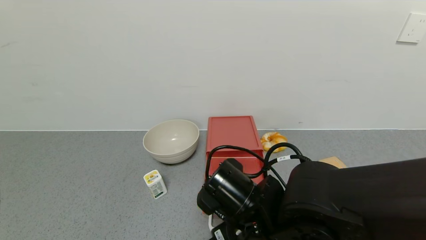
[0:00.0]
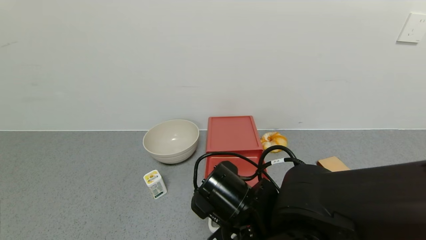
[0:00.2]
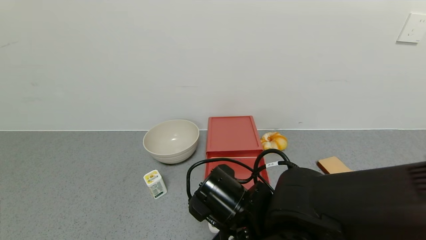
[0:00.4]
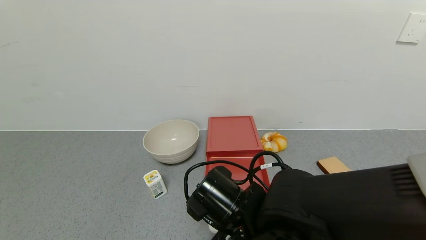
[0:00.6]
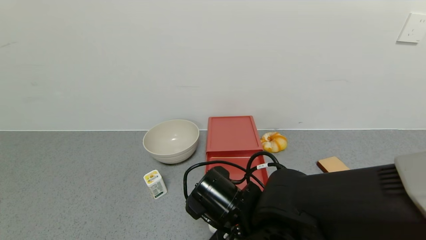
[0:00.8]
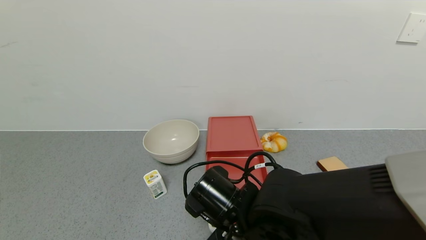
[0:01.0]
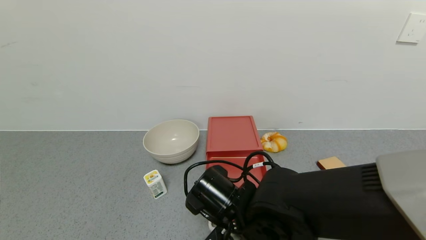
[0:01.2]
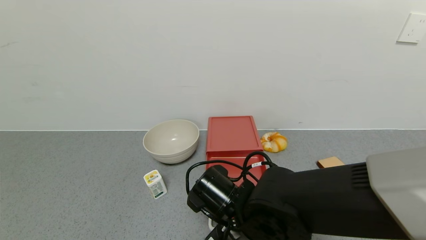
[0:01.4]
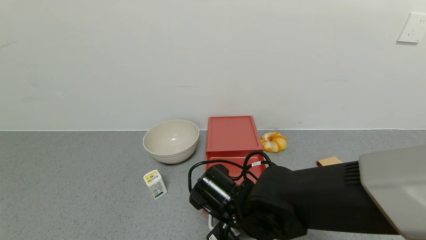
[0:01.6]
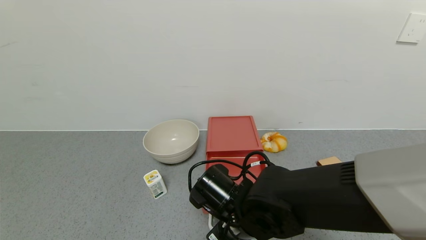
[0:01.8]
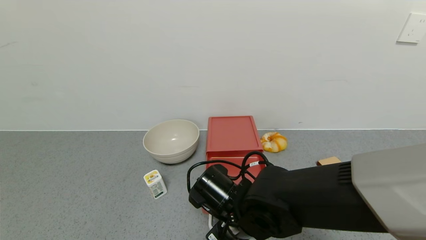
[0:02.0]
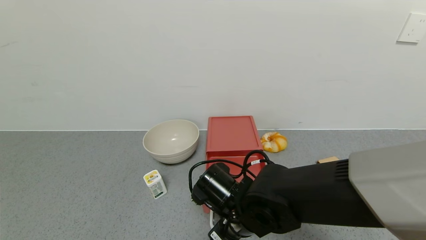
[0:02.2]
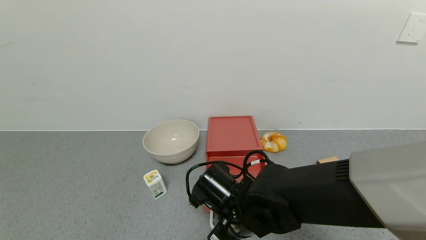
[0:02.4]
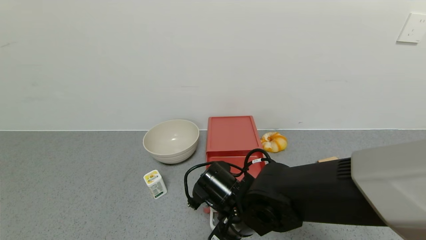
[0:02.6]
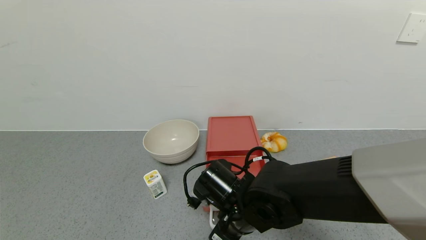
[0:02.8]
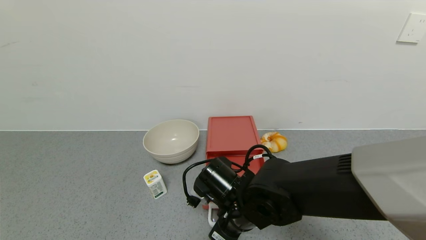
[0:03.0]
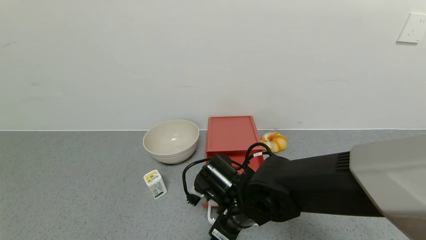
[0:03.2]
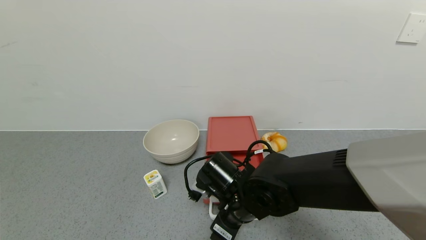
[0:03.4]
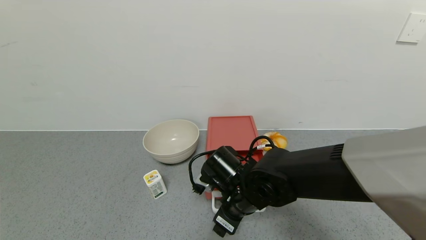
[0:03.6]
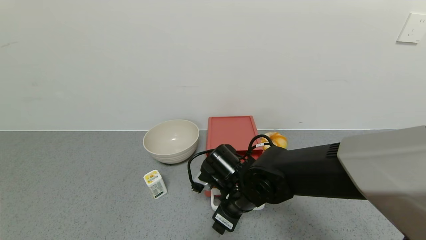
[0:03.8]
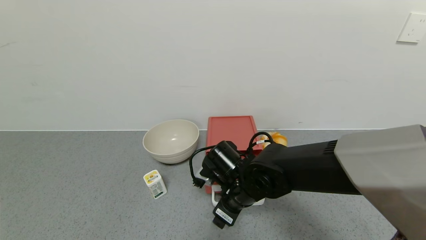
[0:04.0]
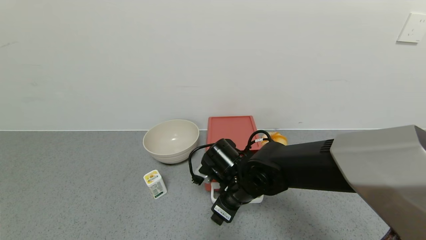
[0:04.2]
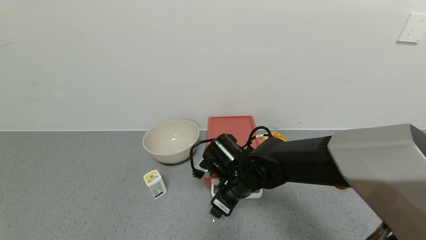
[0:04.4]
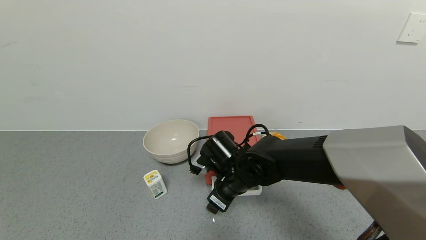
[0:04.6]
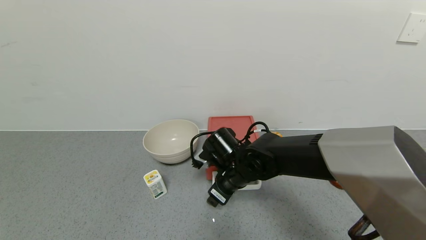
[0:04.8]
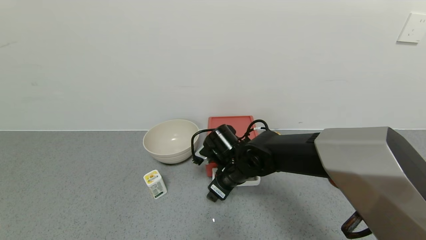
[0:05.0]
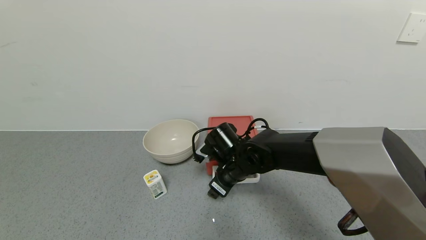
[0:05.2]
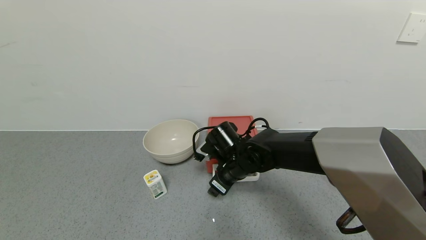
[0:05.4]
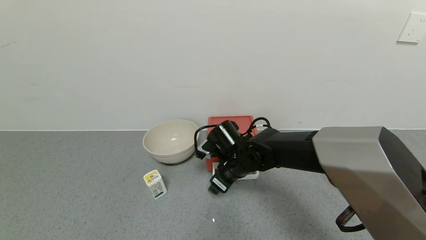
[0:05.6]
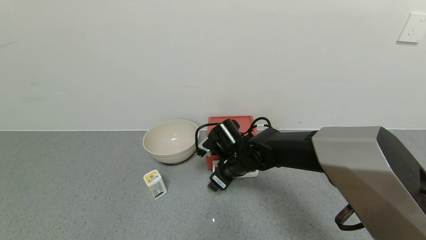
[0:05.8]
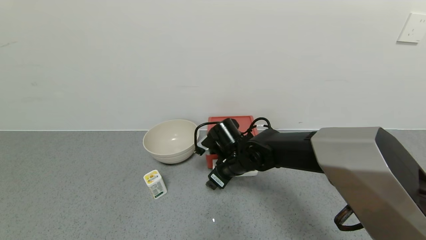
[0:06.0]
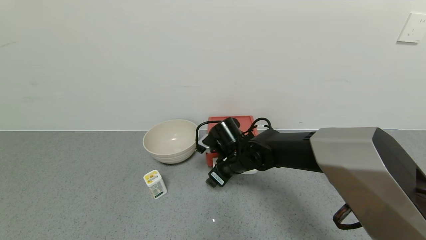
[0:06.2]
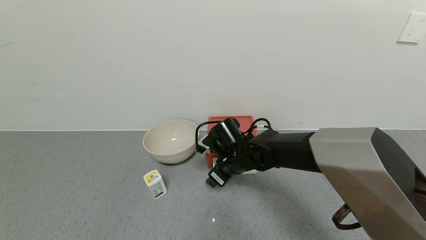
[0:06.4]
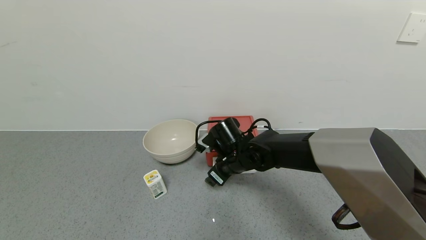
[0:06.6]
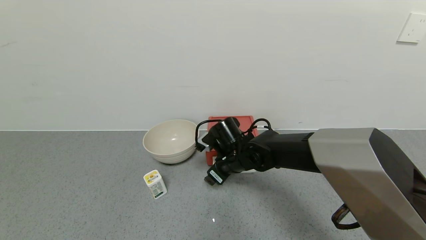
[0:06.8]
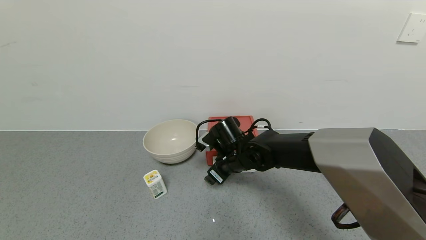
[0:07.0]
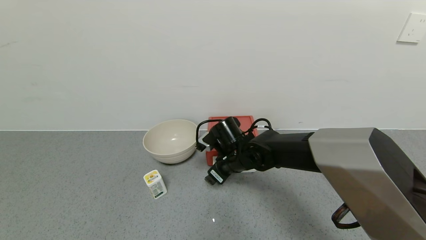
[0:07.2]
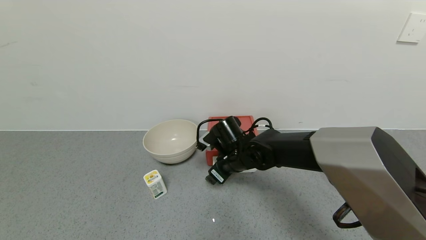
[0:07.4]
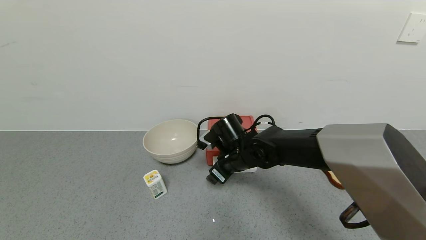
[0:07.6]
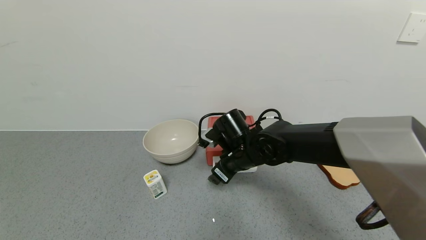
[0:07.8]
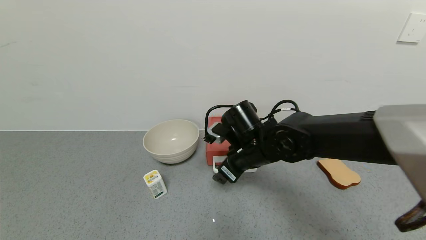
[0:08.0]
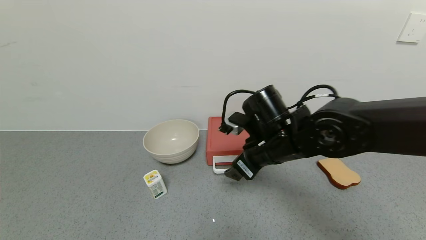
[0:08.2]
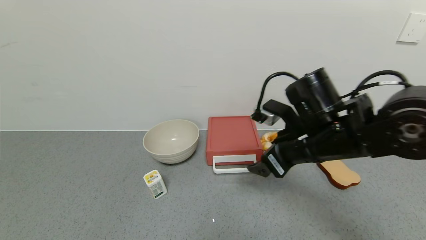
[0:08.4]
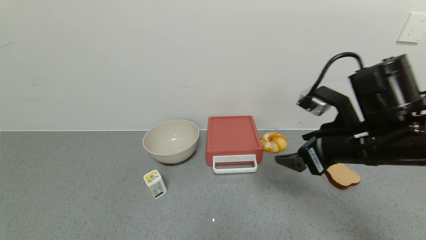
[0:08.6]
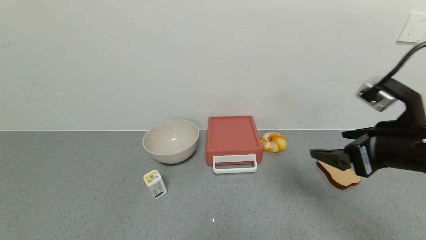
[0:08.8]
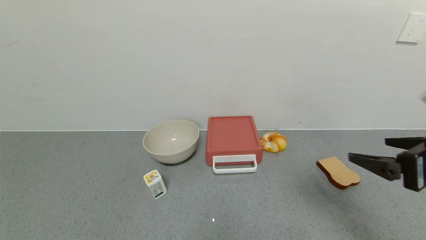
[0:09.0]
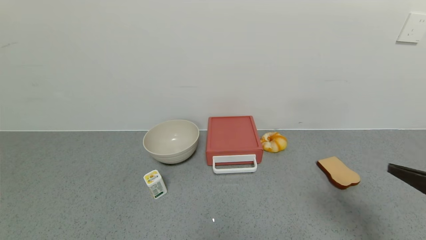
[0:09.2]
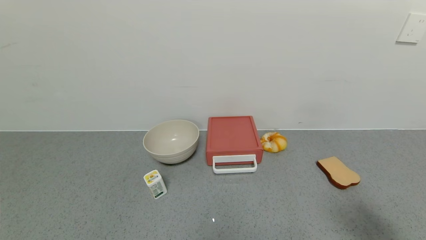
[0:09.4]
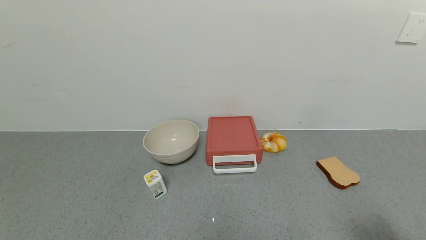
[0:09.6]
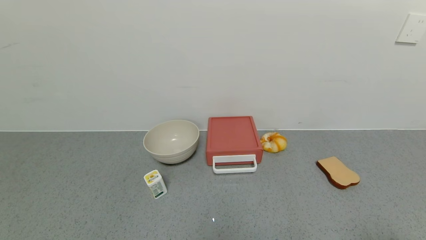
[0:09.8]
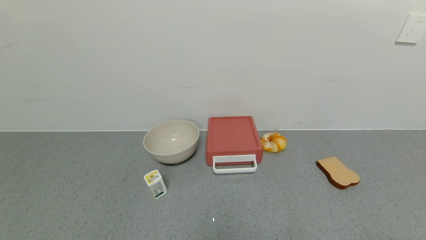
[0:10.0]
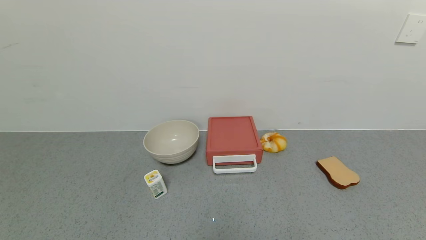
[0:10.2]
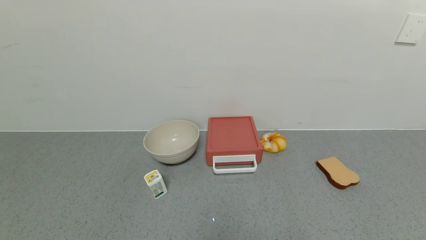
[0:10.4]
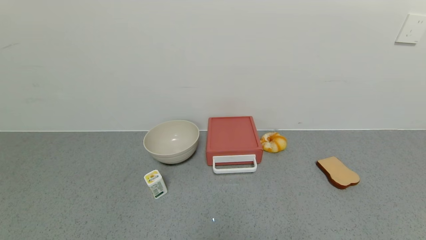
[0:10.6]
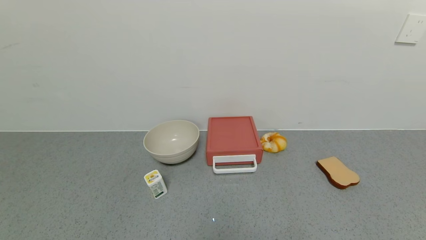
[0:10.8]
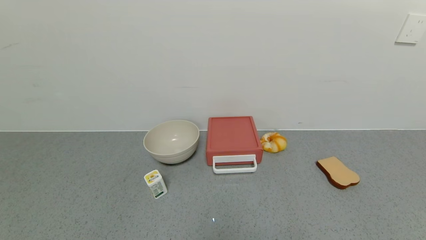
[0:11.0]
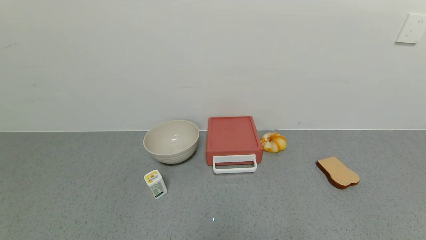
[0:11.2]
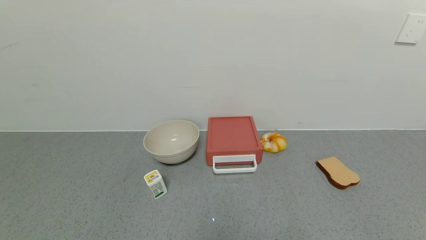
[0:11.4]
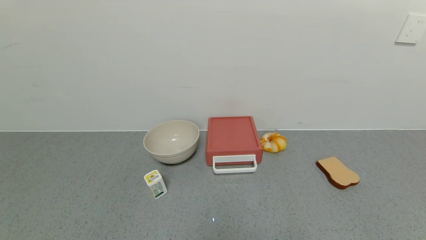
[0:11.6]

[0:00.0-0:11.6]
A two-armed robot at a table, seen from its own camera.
Task of the whole recording: use the gripper to open the drawer and close the red drawer.
Step, 0:00.0 to 0:08.2: Close the red drawer with the right gripper.
0:00.0 to 0:01.4: The grippers move only a little.
0:01.4 to 0:02.8: The grippers make only small movements.
0:02.8 to 0:04.4: The right gripper travels forward by some 5 cm.
0:04.4 to 0:05.8: The right gripper heads forward, covering about 5 cm.
0:05.8 to 0:07.2: The grippers make only small movements.
0:07.2 to 0:08.8: The right gripper is displaced to the right, backward and upward by some 30 cm.
0:08.8 to 0:10.2: The right gripper heads backward, covering about 25 cm.
